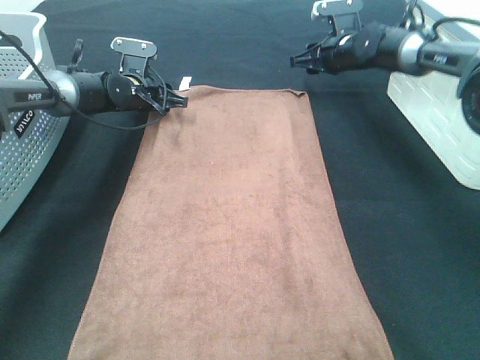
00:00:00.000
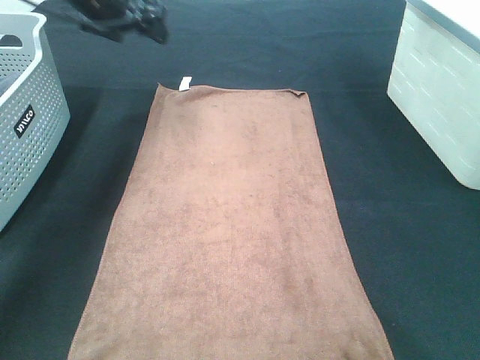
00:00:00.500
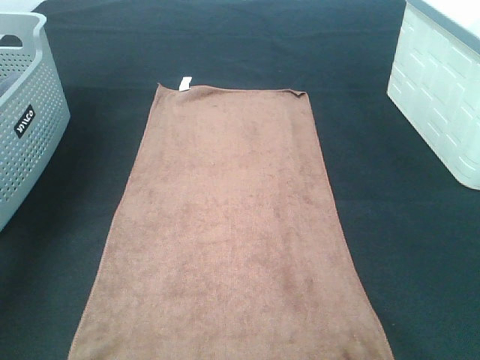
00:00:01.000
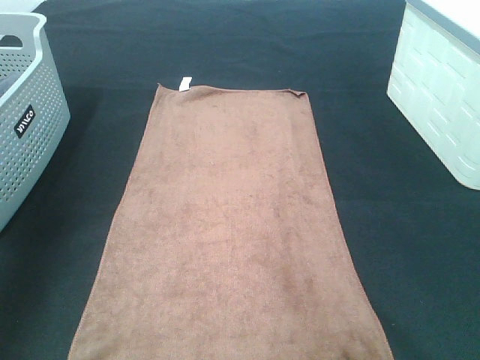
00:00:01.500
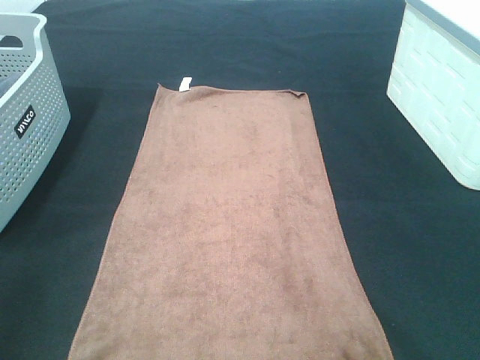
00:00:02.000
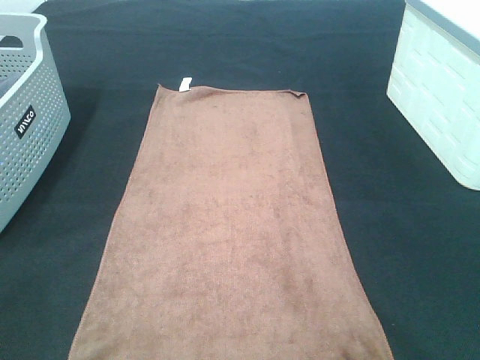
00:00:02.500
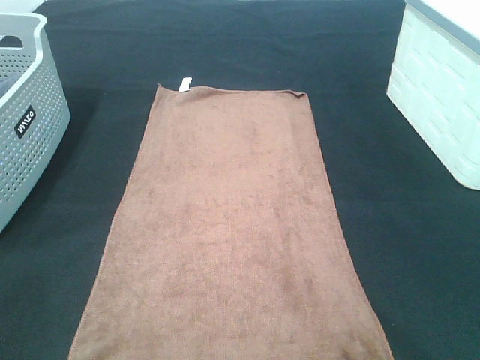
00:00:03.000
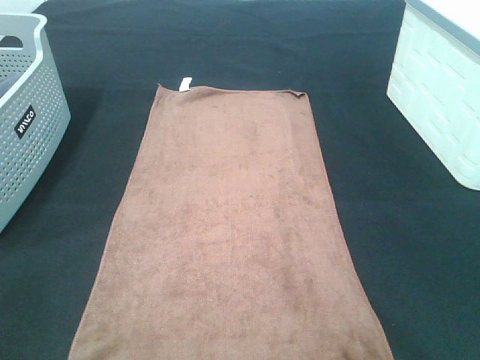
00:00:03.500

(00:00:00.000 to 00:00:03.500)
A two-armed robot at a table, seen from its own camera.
Task of the whole recording: Remove the towel and place it.
00:00:00.000 - 00:00:02.000: The right gripper goes roughly 60 cm backward; the left gripper moves backward and upward, some 60 cm.

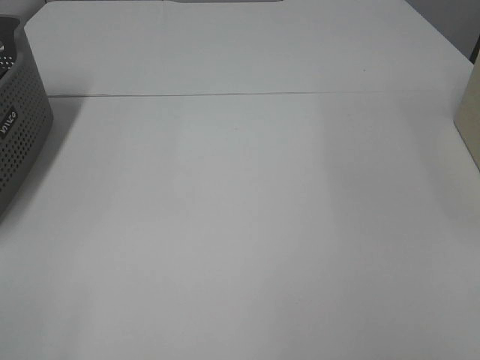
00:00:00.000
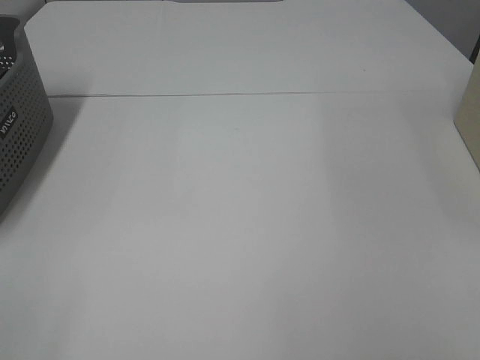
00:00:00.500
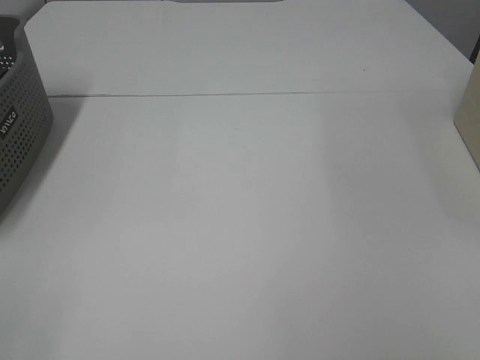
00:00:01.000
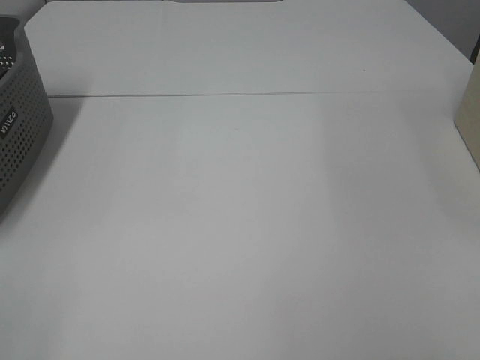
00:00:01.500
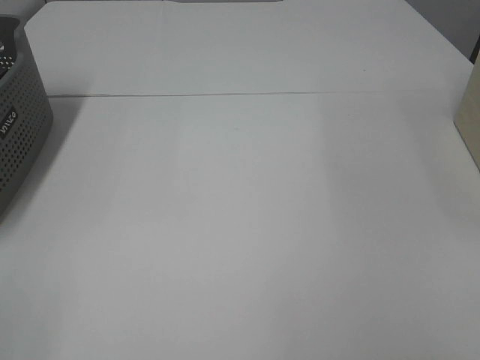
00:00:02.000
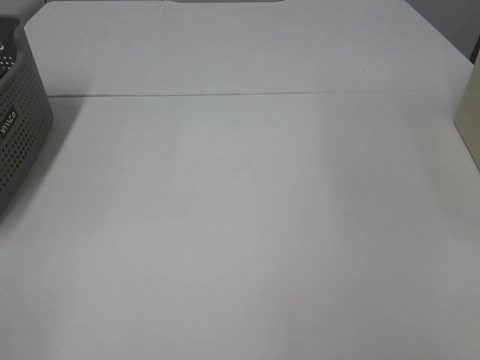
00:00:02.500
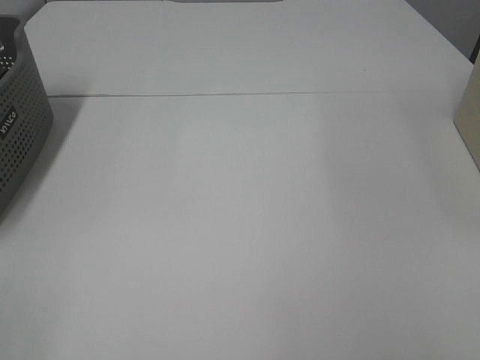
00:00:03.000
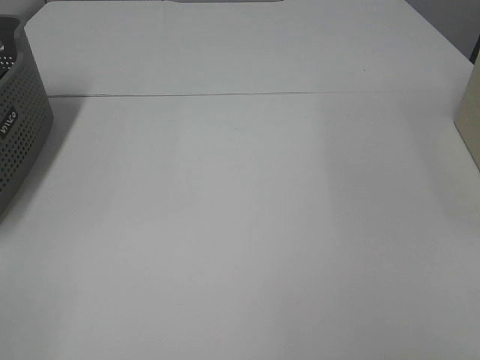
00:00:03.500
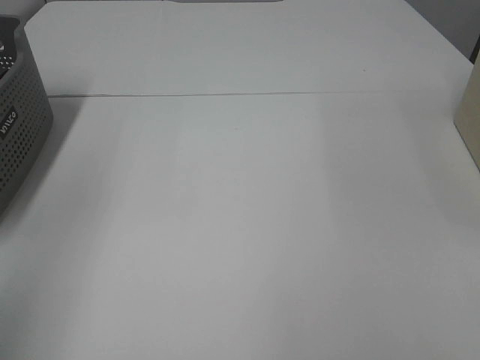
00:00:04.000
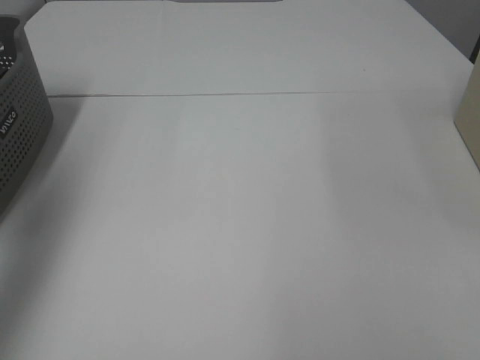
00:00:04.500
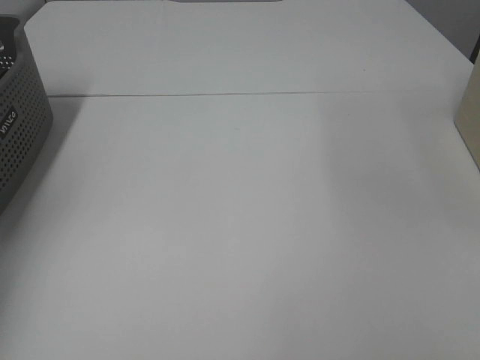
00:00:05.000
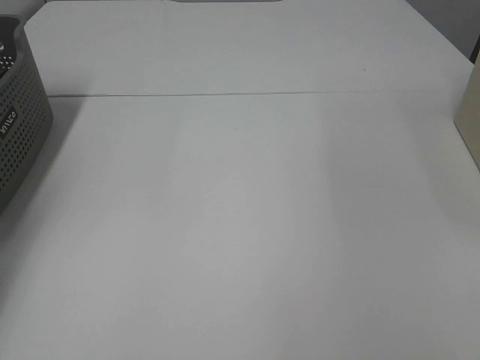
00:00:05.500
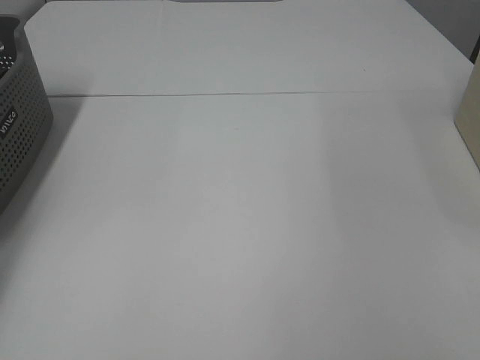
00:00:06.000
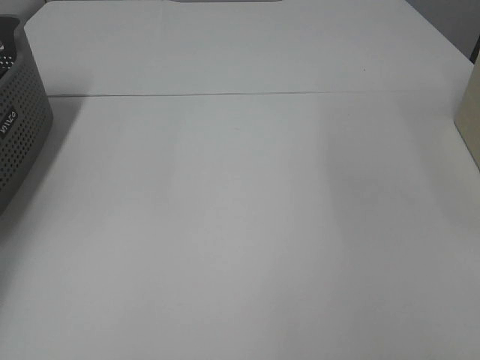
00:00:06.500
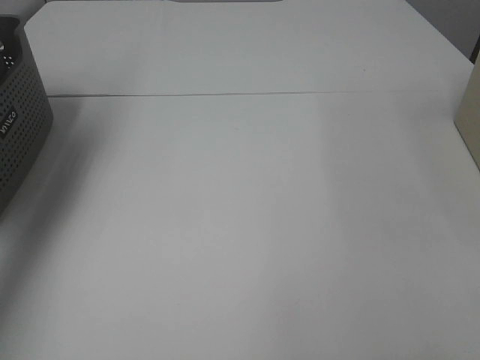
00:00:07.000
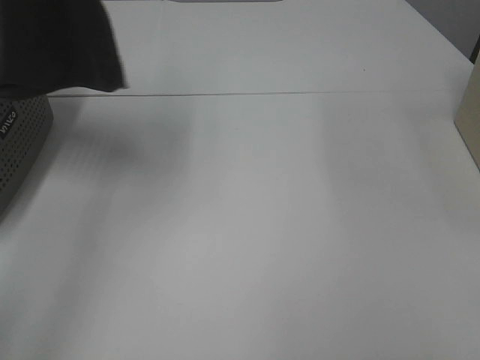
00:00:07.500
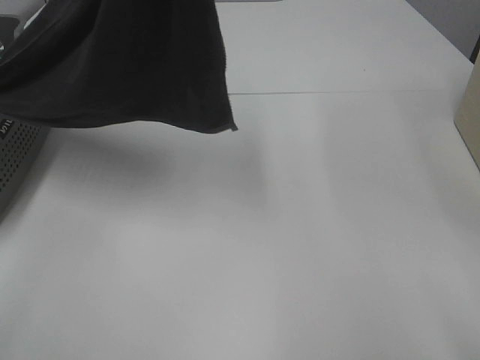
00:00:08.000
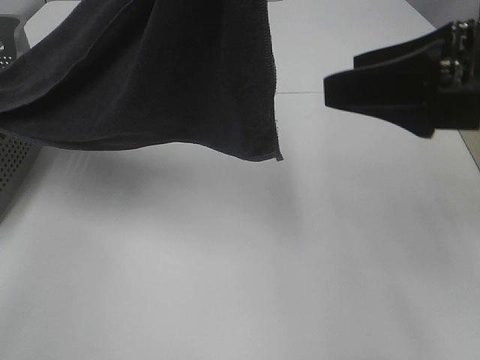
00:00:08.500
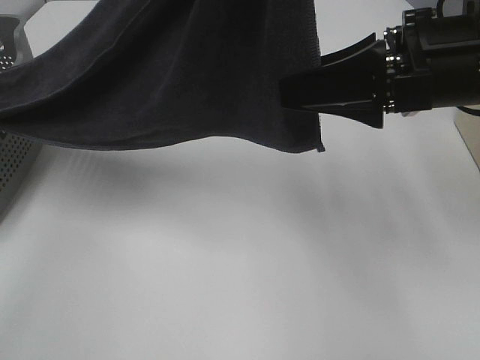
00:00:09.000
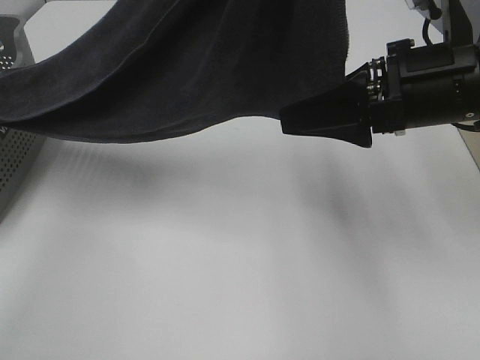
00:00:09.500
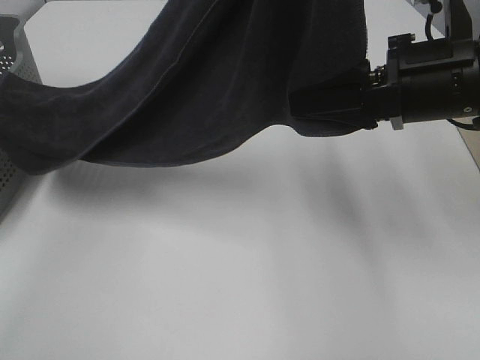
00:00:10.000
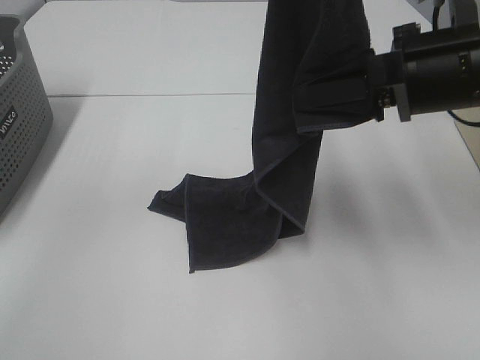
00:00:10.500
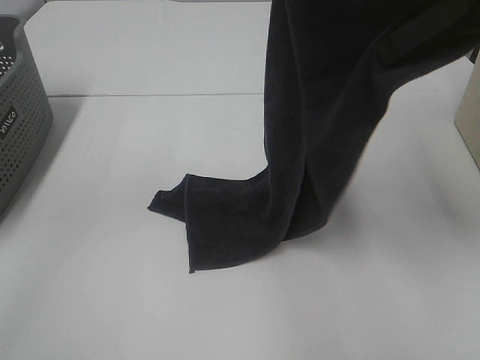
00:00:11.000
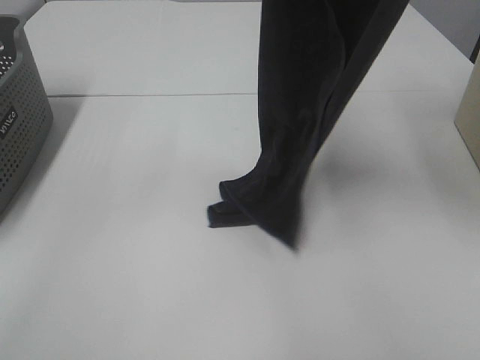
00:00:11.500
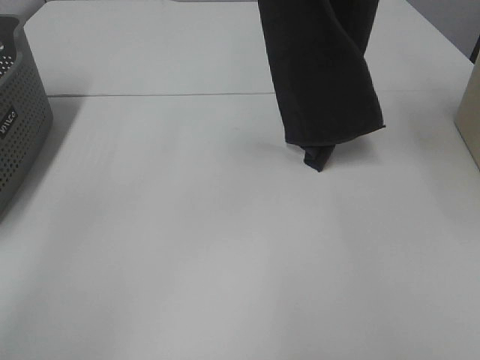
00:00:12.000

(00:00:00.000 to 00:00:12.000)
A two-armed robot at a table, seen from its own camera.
Task of the whole recording: Remove the towel and place it.
Step, 00:00:07.000 - 00:00:10.000: Right hand: grab a corner of the grey towel and straighten it.
00:00:02.000 - 00:00:04.000: The left gripper shifts approximately 15 cm upward and forward.
00:00:04.000 - 00:00:06.000: The left gripper heads forward, downward and to the left, covering about 40 cm, and closes its fingers.
00:00:06.000 - 00:00:08.000: The right gripper travels forward by some 5 cm, while the left gripper shifts approximately 50 cm to the right, upward and backward.
00:00:08.000 - 00:00:10.000: The left gripper goes roughly 5 cm to the right. The right gripper is displaced forward by some 20 cm, and closes its fingers.
00:00:10.000 - 00:00:12.000: The right gripper goes some 30 cm upward; the left gripper heads forward and to the left, covering some 10 cm.

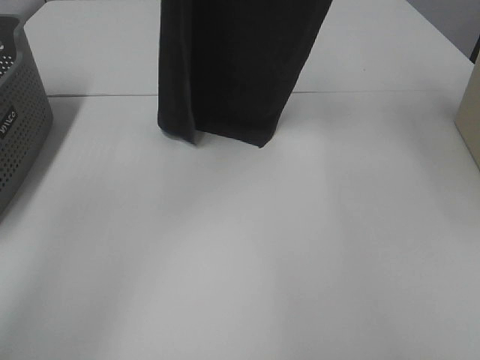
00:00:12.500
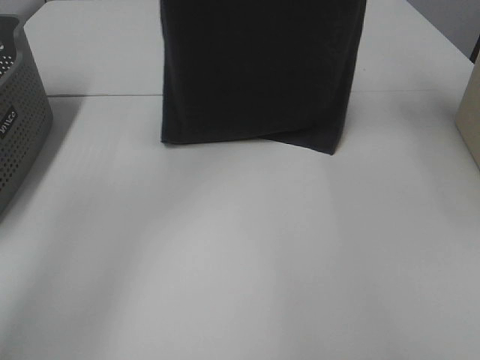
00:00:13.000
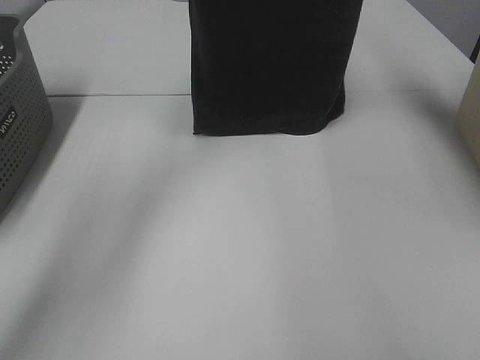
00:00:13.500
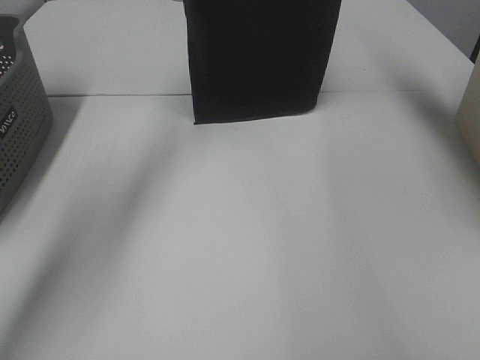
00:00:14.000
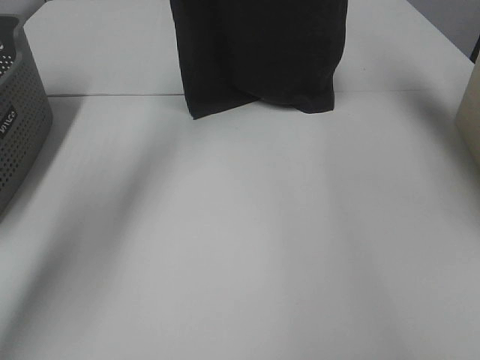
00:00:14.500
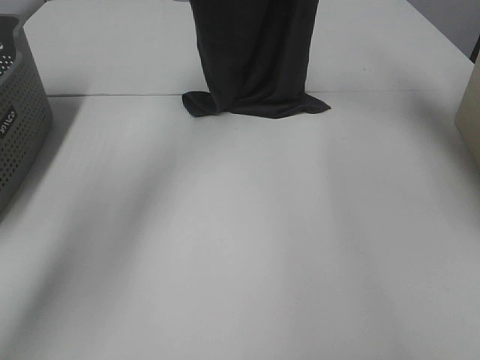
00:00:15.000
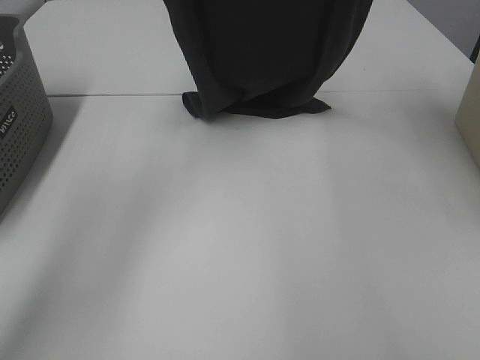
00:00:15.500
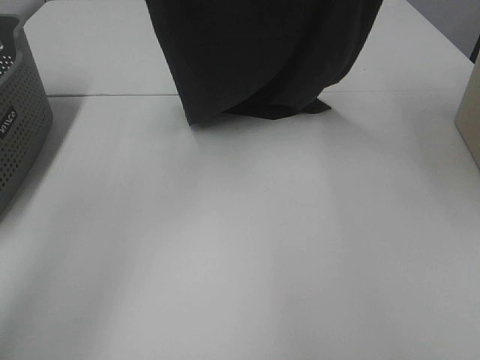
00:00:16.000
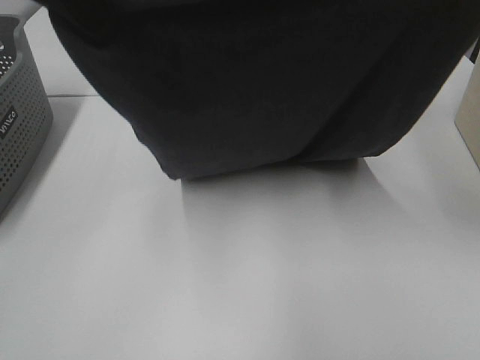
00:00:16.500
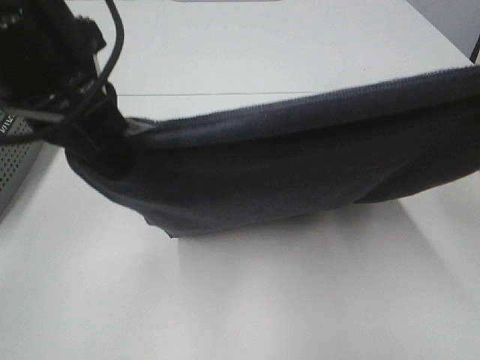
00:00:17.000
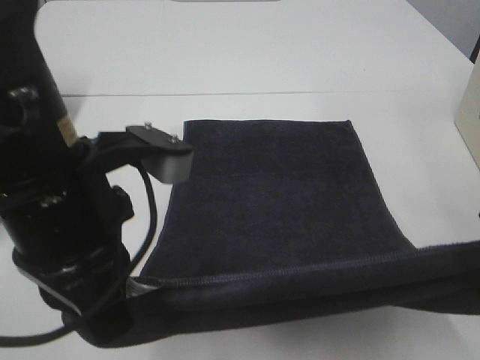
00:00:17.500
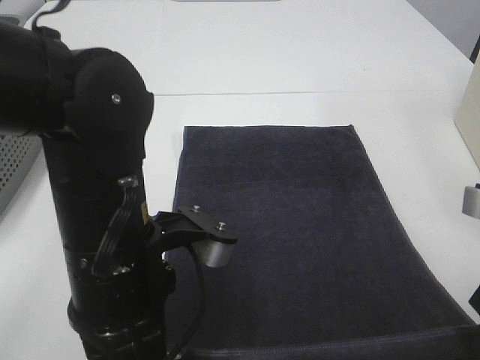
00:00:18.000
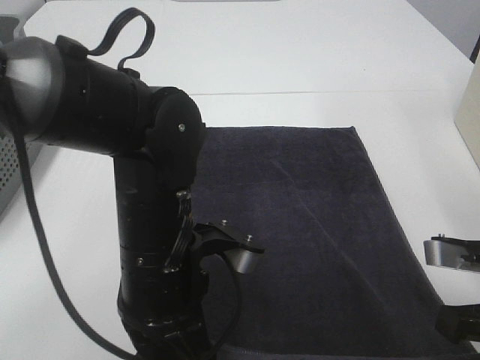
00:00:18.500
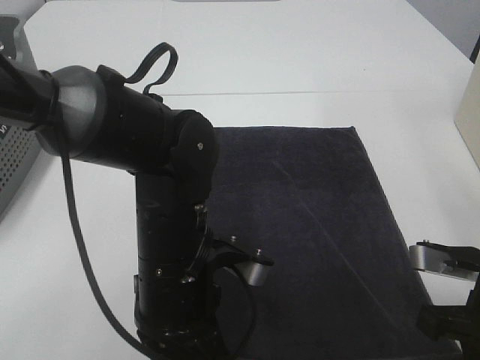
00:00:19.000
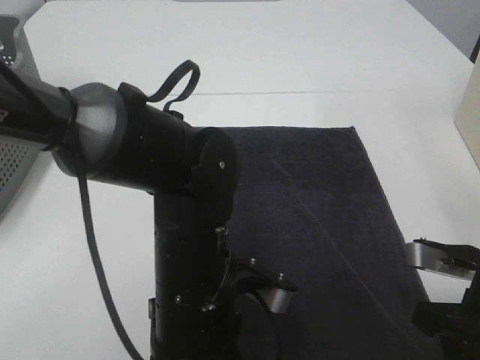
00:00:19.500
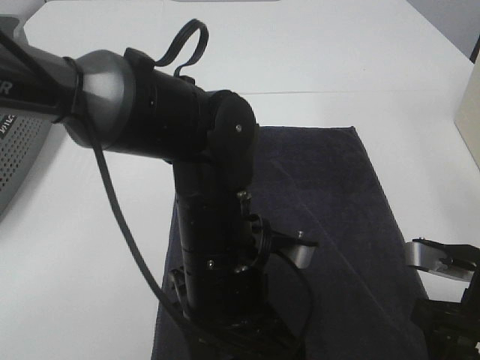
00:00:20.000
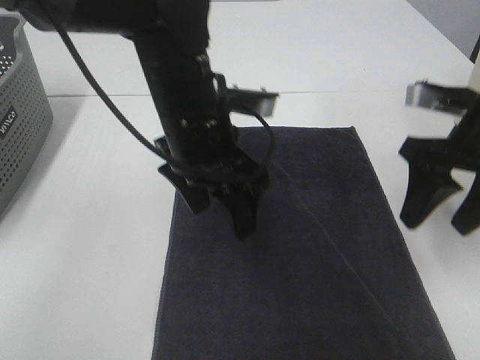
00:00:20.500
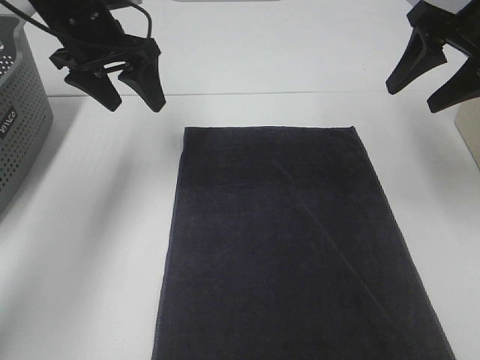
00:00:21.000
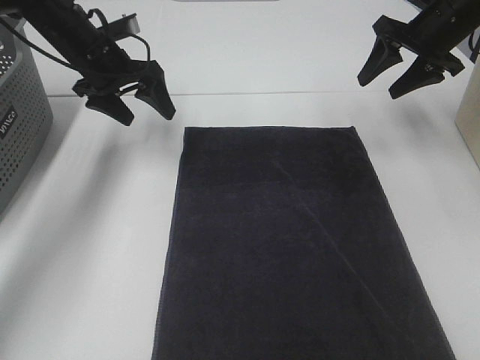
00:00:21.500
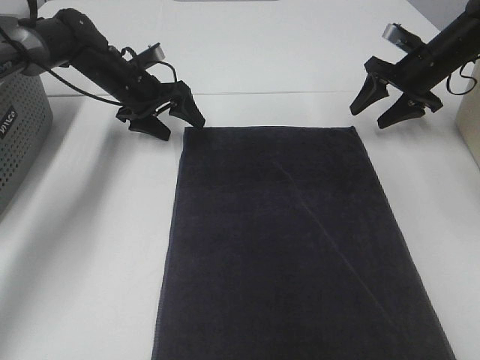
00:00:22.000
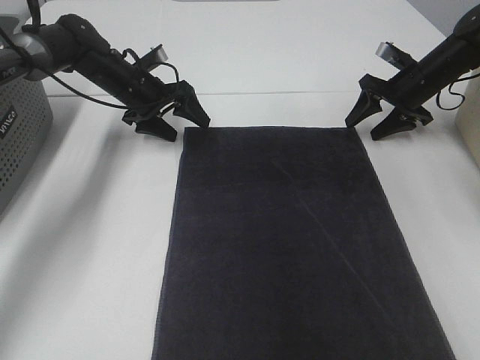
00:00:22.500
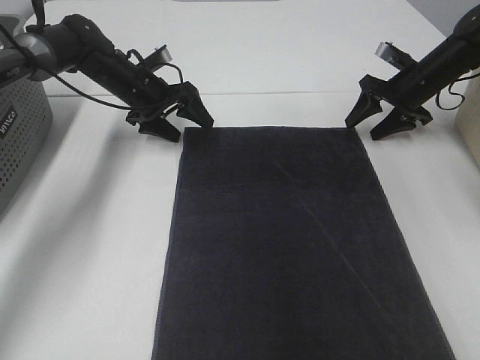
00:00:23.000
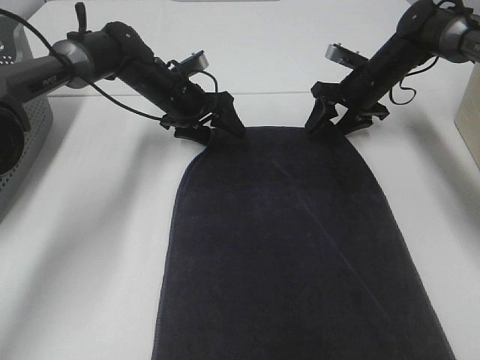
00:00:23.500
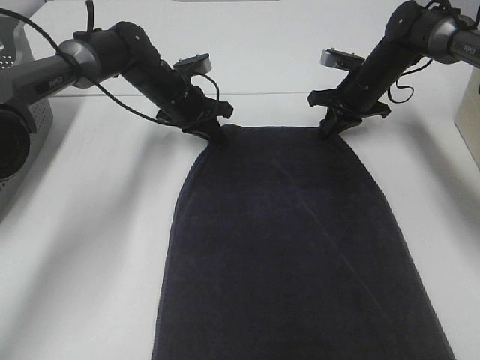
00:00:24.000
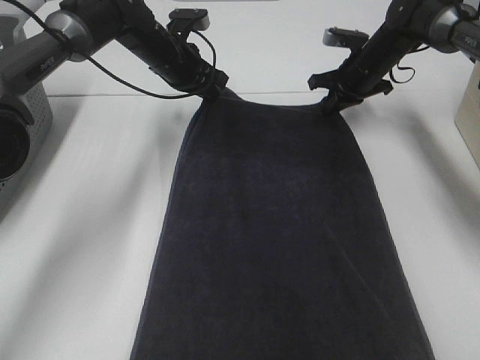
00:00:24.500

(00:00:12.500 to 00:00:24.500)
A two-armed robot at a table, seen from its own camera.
Task of the whole recording: Remove the towel and place it.
Step, 00:00:12.500 - 00:00:16.000: Left hand: spread the grey towel flat on the table.
Step, 00:00:12.500 - 00:00:16.000: Right hand: spread the grey towel flat on the table.
Step, 00:00:16.500 - 00:00:22.000: Left hand:adjust the gray towel.
Step, 00:00:16.500 - 00:00:22.000: Right hand:adjust the gray towel.
00:00:12.500 - 00:00:14.500: The left gripper goes about 15 cm forward and downward. The right gripper shifts approximately 10 cm forward.
00:00:14.500 - 00:00:16.500: The two grippers go approximately 25 cm backward.
00:00:16.500 - 00:00:18.500: The grippers both shift downward by approximately 25 cm.
00:00:18.500 - 00:00:20.500: Both grippers move forward and upward, roughly 15 cm. The right gripper opens up. Meanwhile the left gripper opens up.
00:00:20.500 - 00:00:22.500: The right gripper is displaced forward and downward by approximately 30 cm; the left gripper travels forward, to the left and downward by about 30 cm.
00:00:22.500 - 00:00:24.500: The right gripper is displaced to the left by roughly 10 cm, and closes. Meanwhile the left gripper is displaced to the right and upward by approximately 10 cm, and closes up.
